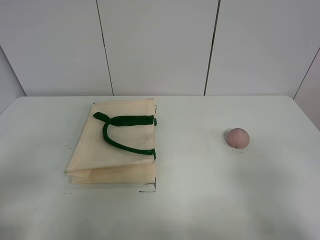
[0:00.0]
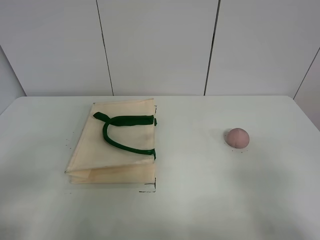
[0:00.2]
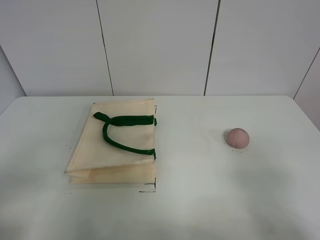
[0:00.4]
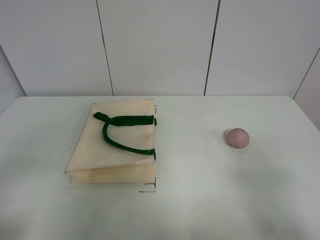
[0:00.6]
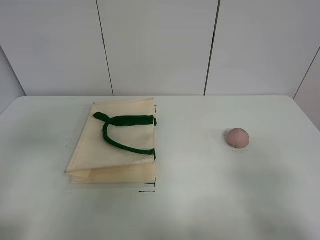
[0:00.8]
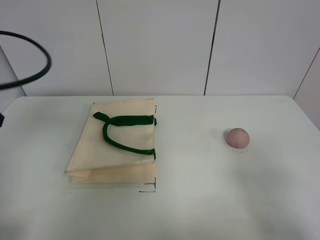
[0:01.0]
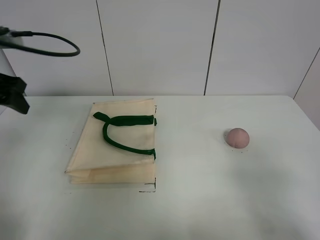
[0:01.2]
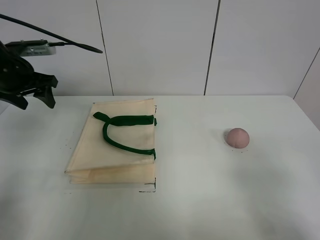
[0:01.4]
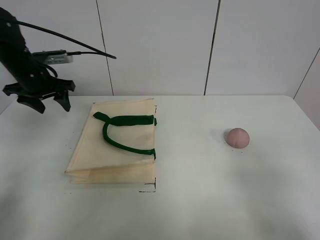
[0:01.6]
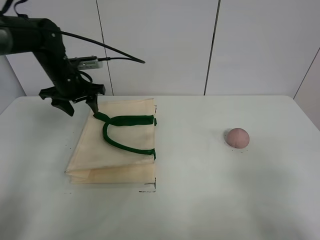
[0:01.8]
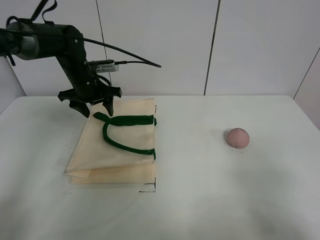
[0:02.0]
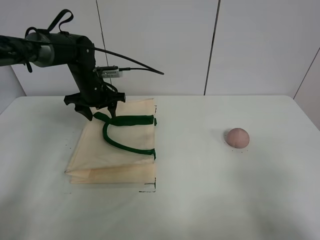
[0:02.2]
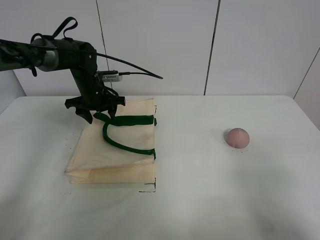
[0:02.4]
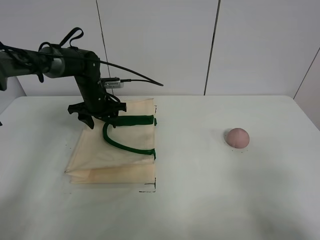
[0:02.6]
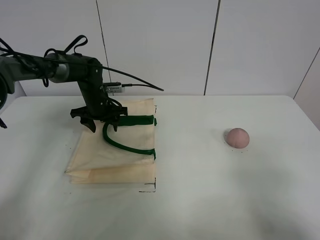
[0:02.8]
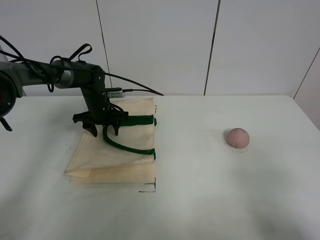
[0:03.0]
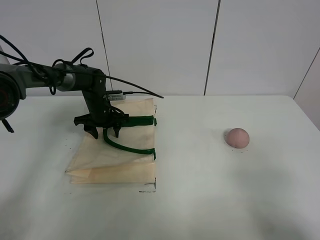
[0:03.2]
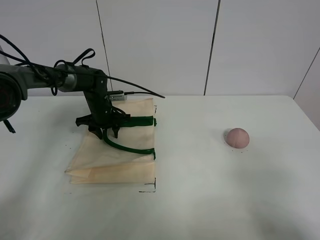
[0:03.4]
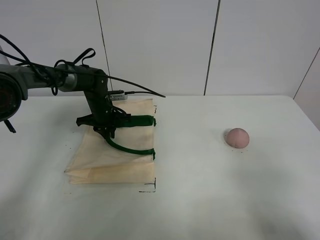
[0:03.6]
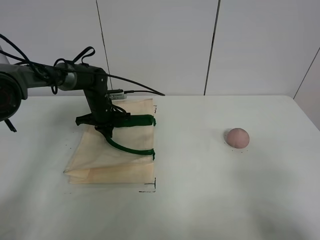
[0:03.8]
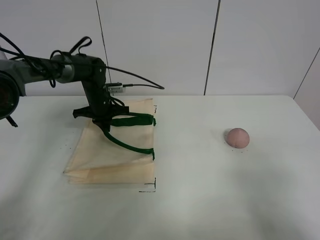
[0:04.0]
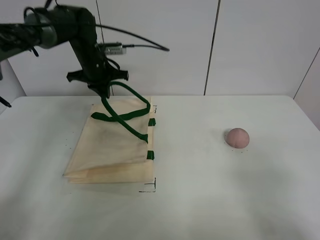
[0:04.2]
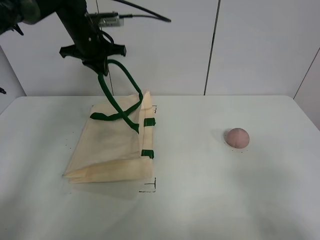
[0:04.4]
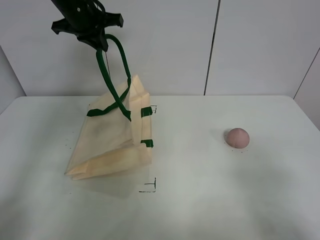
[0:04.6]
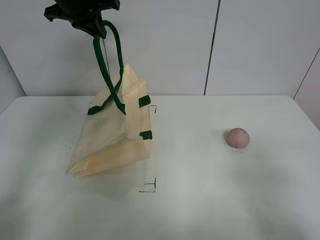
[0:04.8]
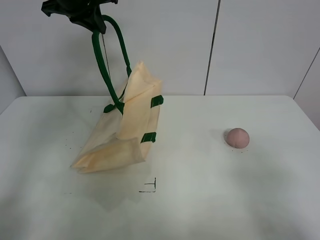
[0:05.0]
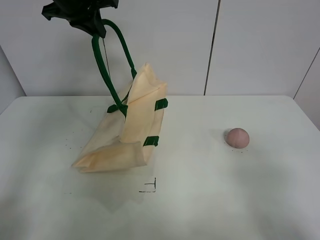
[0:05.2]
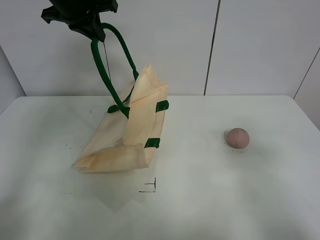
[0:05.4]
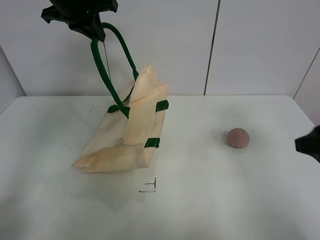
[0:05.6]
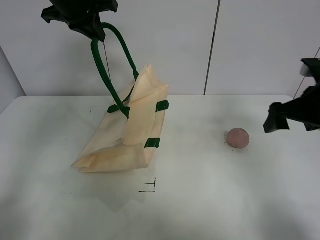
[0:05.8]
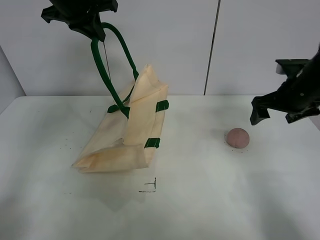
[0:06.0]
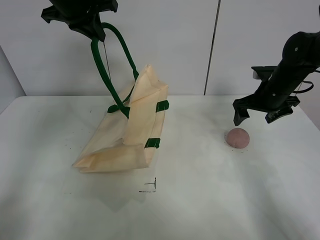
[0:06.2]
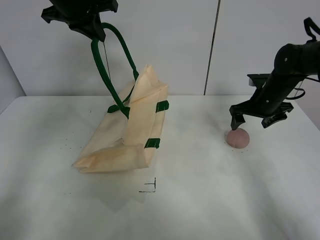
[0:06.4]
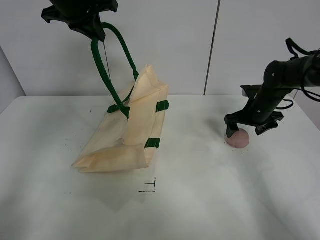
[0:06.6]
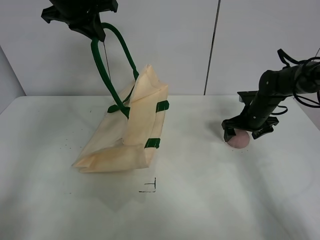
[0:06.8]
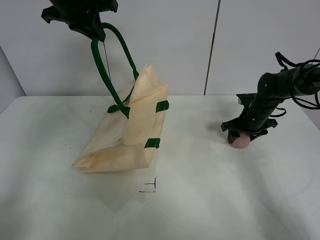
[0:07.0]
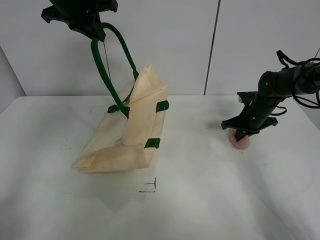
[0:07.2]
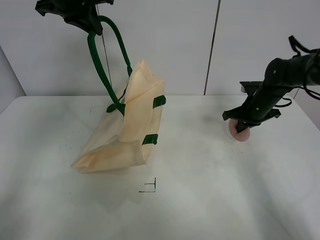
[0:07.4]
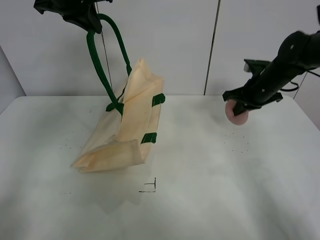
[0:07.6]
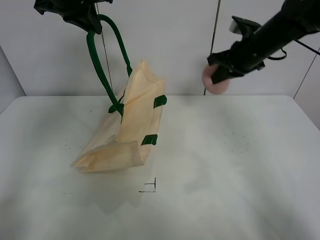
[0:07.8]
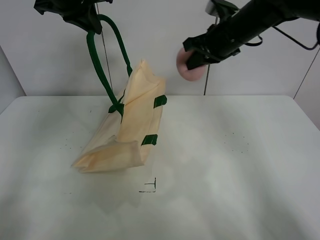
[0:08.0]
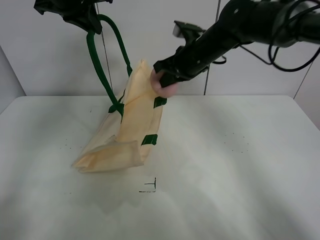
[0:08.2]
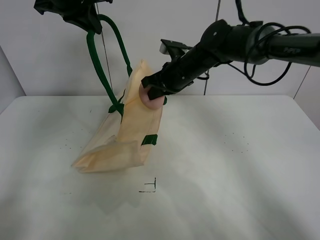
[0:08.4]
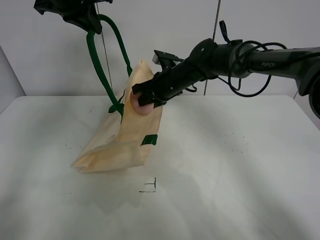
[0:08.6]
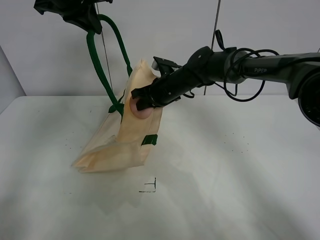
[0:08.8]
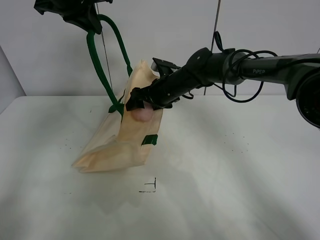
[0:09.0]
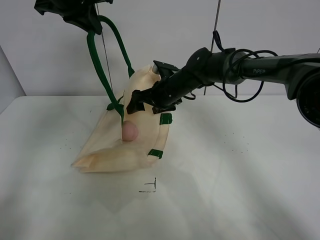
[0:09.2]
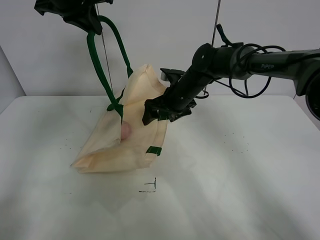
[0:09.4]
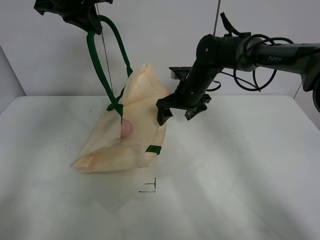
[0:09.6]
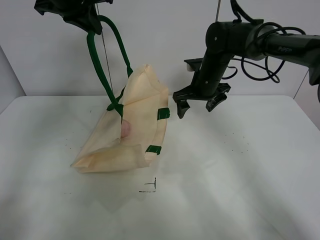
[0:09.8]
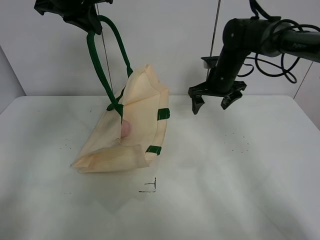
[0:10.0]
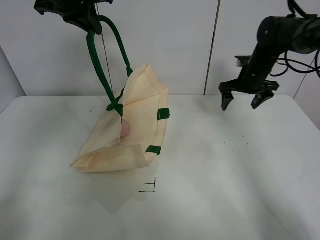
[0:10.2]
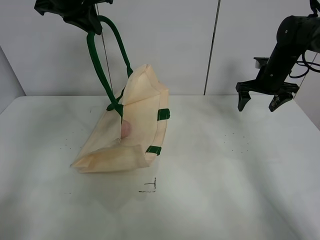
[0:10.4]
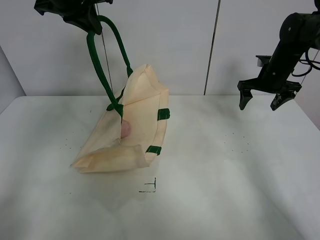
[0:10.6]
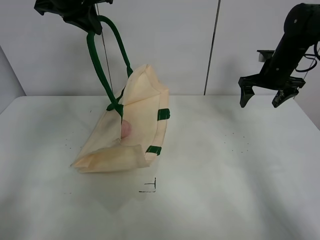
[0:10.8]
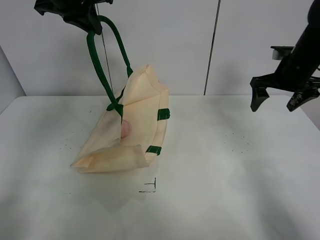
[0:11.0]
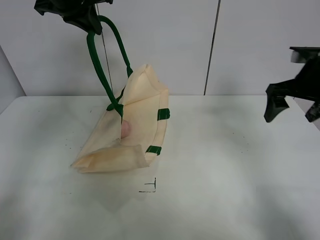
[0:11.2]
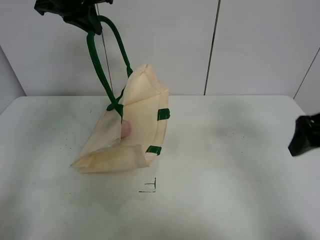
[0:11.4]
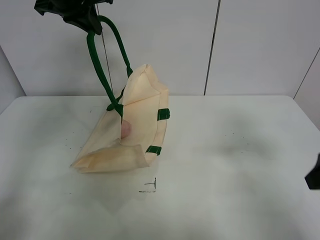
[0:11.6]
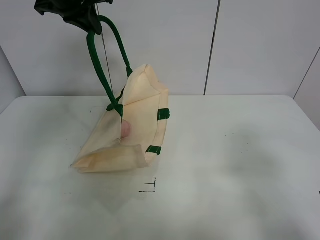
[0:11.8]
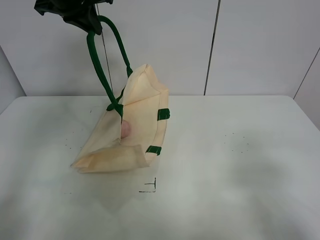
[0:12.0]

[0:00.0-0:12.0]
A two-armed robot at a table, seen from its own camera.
Task of the whole recording: open the white linen bag and put the peach in the bag.
Step, 0:00.0 to 0:04.8: Lift the handbag with left gripper.
Step, 0:05.0 to 0:07.2: Grasp the peach with right gripper.
Step, 0:07.4 to 0:09.4: Place the peach in the handbag with right gripper.
0:00.0 to 0:01.6: The left gripper goes some 40 cm forward.
0:01.6 to 0:03.0: The left gripper shifts about 20 cm downward, to the right and forward.
0:03.0 to 0:04.4: The left gripper is displaced upward by about 20 cm, and closes its fingers.
0:04.4 to 0:06.0: The right gripper moves forward, roughly 35 cm. The left gripper heads upward and backward, covering some 10 cm.
0:06.0 to 0:07.6: The right gripper moves forward, about 5 cm, reaches roughly 15 cm downward, then returns, and closes.
0:07.6 to 0:09.0: The right gripper travels to the left by roughly 20 cm, and opens.
0:09.0 to 0:10.4: The right gripper travels to the right by roughly 25 cm.
0:10.4 to 0:12.0: The right gripper is displaced backward by some 40 cm.

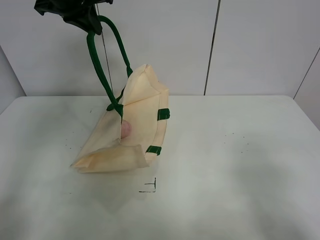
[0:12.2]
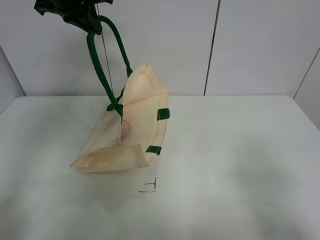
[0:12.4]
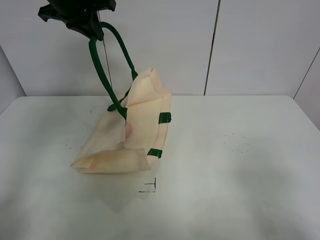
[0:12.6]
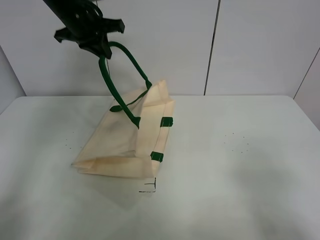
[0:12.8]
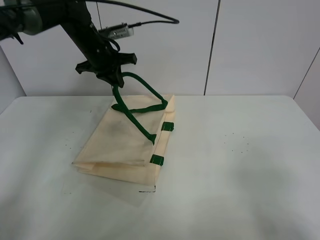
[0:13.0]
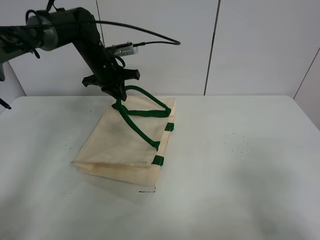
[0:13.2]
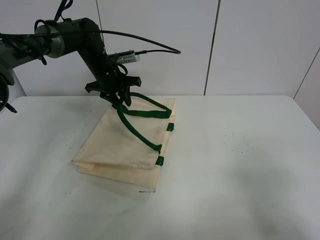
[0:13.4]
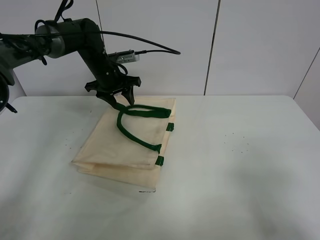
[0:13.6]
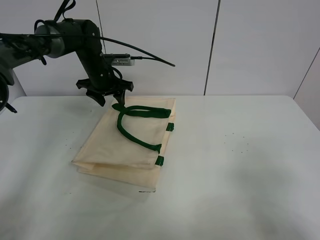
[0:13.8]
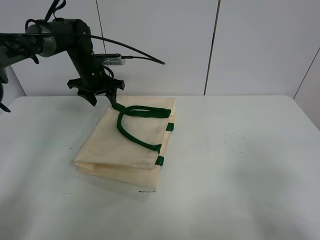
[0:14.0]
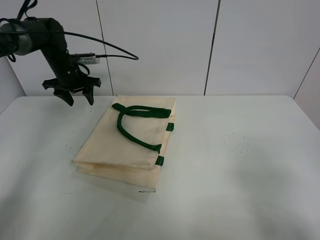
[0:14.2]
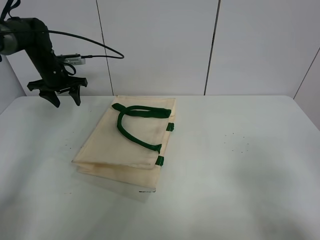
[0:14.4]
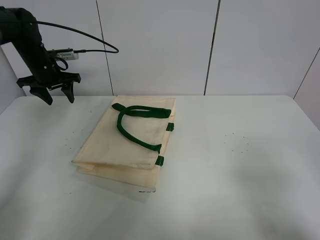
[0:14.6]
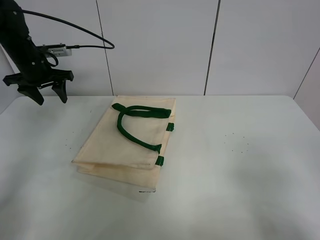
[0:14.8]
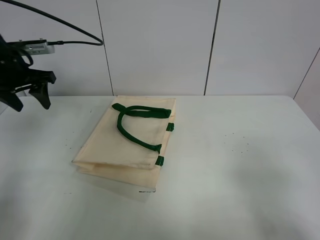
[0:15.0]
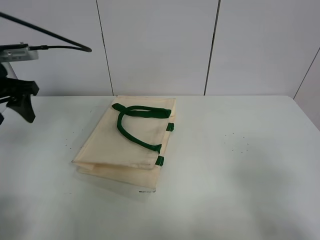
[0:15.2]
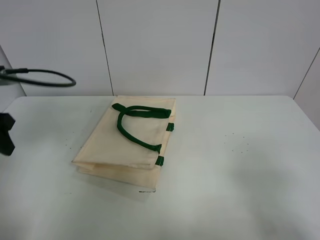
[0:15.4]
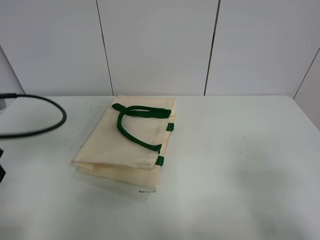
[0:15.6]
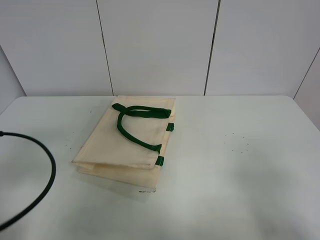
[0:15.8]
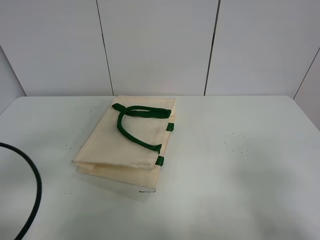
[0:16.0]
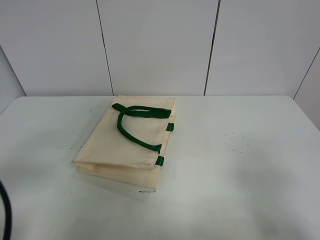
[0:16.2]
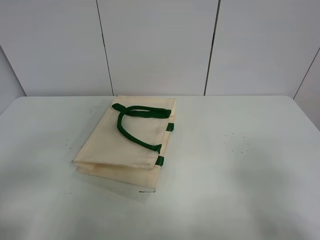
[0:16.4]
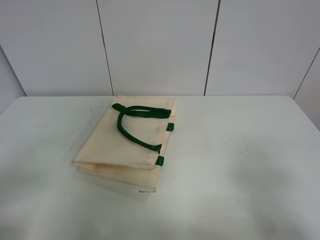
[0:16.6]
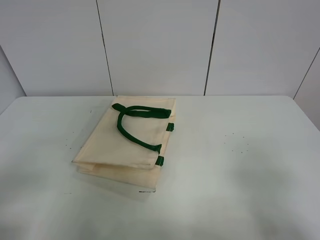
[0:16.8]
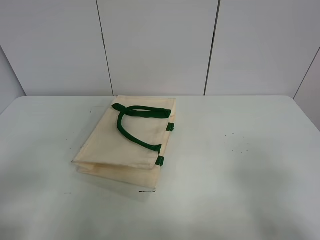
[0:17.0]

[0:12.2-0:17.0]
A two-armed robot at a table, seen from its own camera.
Task of the whole recording: open the white linen bag and put the peach in the bag.
0:12.2 to 0:13.8: The left gripper goes some 20 cm downward, and opens up.
0:13.8 to 0:15.4: The left gripper shifts about 30 cm backward and to the left.
0:15.4 to 0:17.0: The left gripper heads backward, covering roughly 20 cm.

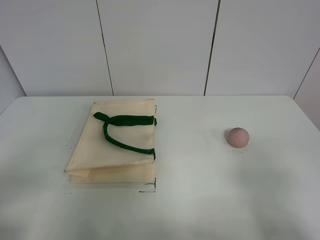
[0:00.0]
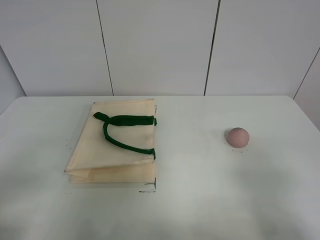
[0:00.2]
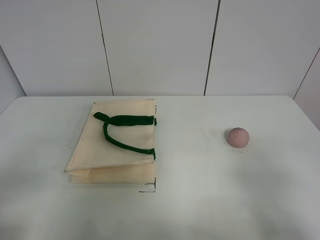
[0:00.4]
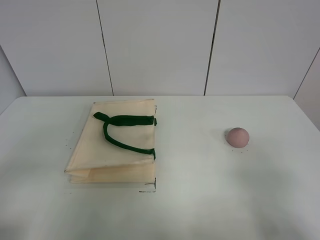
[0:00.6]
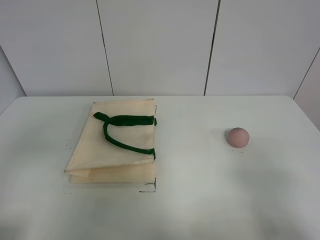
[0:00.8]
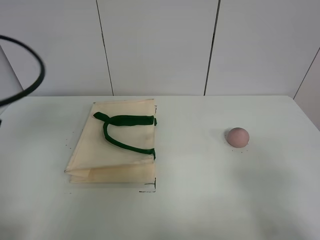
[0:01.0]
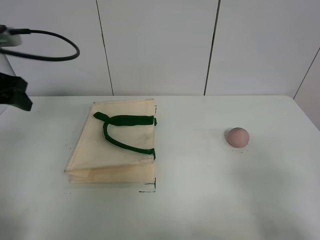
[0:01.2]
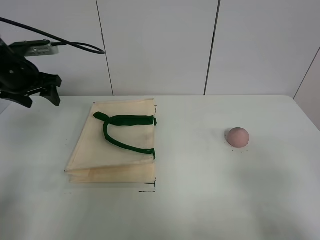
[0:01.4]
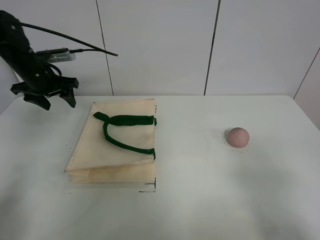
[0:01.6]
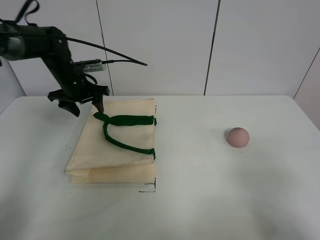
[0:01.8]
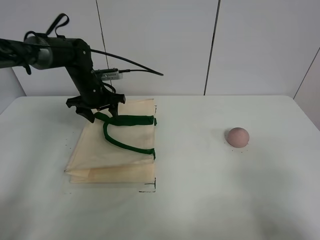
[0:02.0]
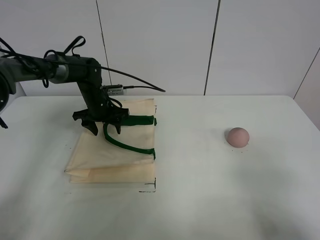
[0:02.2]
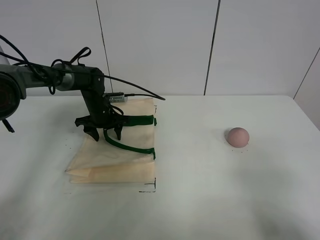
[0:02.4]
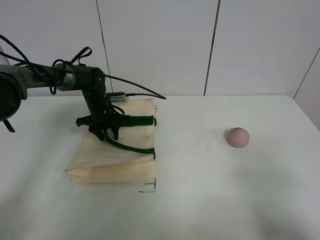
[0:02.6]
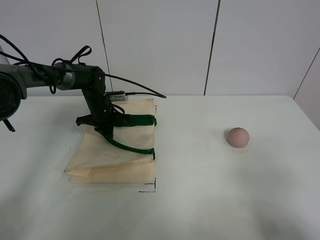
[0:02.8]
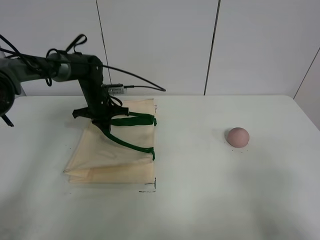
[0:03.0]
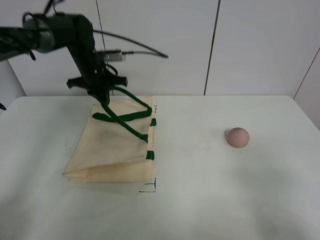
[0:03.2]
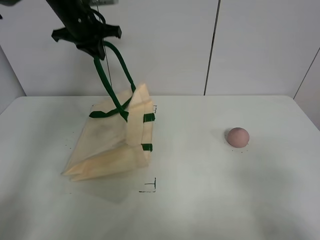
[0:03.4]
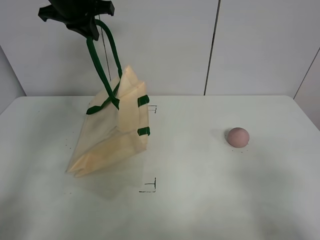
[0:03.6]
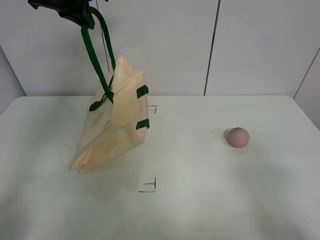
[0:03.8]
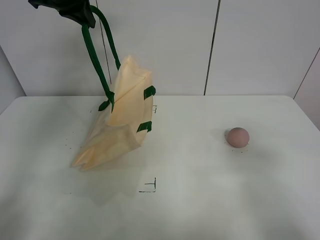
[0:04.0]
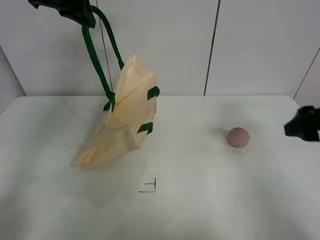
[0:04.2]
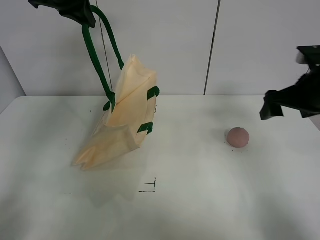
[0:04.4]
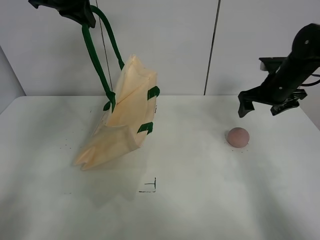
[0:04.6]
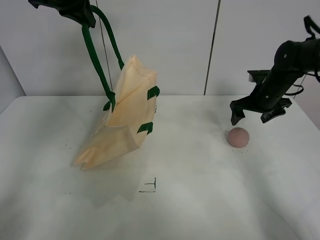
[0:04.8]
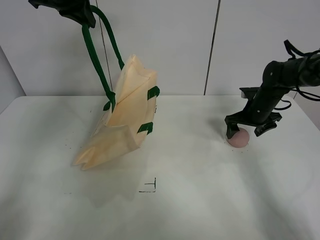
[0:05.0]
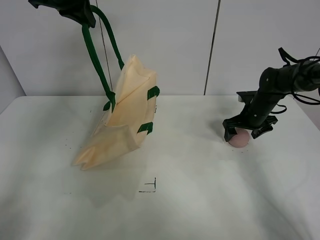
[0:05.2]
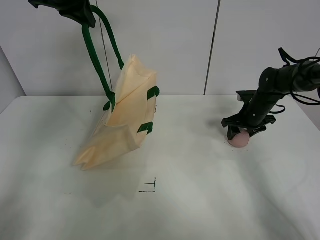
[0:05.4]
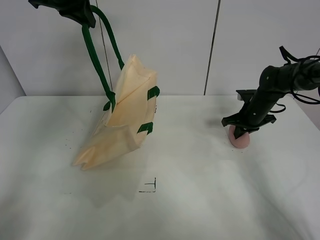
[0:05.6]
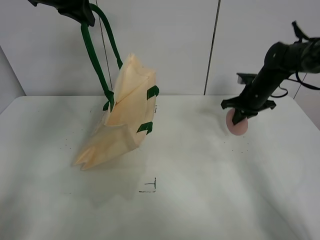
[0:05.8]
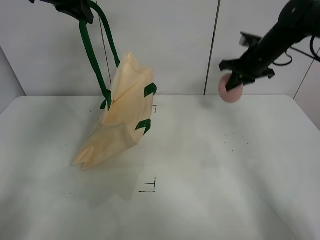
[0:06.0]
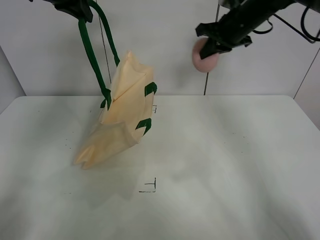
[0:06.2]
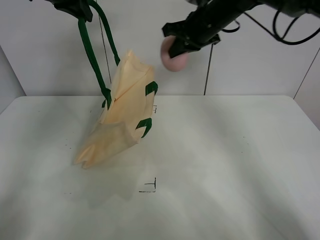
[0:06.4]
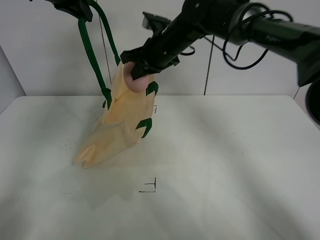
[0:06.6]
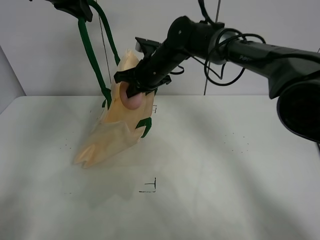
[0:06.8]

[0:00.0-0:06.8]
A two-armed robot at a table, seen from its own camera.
Task of the whole recording: open the white linen bag and put the peach in the bag.
Step, 0:00.0 to 0:04.0: Lift the handbag with left gripper.
Step, 0:04.2 to 0:05.6: Grasp the peach with right gripper.
0:01.4 to 0:02.8: The left gripper heads downward, to the right and forward, covering approximately 25 cm, and closes.
0:02.8 to 0:04.0: The left gripper moves upward, roughly 30 cm.
0:04.0 to 0:05.4: The right gripper travels forward and downward by some 40 cm.
0:05.4 to 0:06.8: The right gripper shifts some 30 cm to the left and upward, and closes up.
